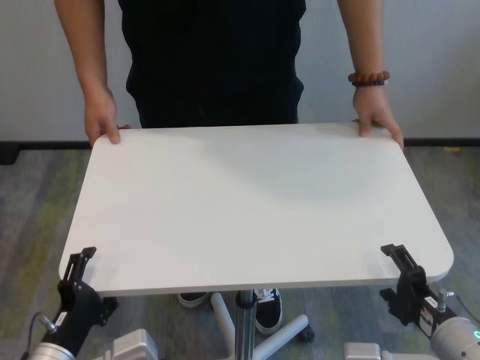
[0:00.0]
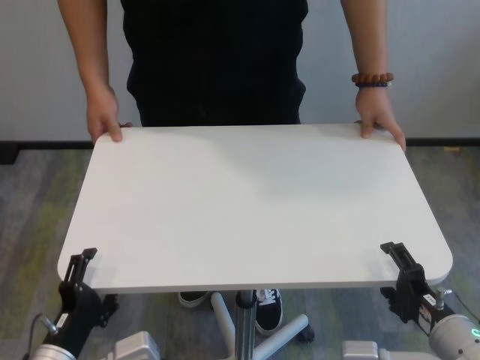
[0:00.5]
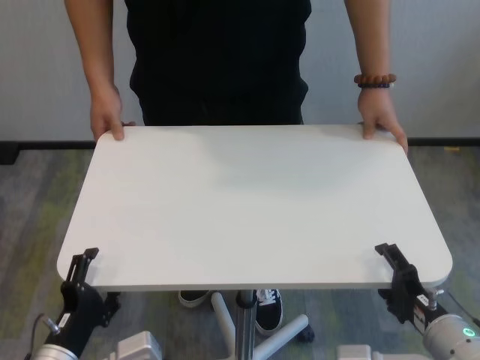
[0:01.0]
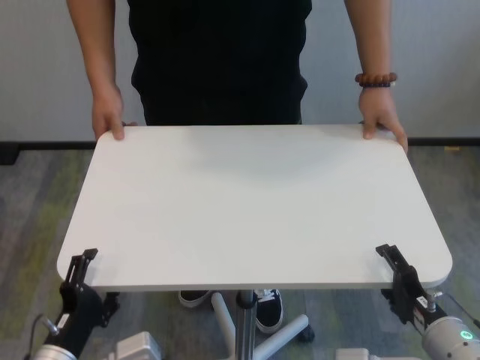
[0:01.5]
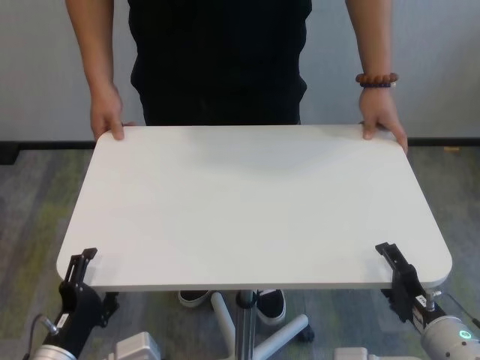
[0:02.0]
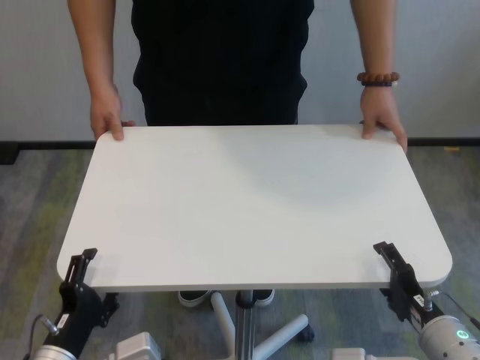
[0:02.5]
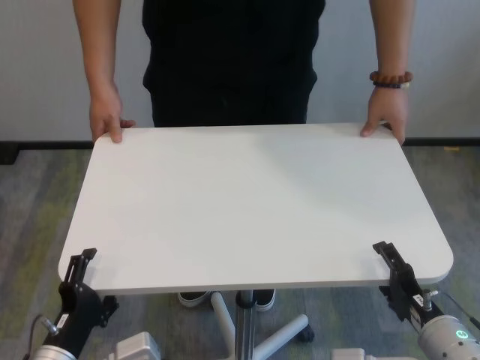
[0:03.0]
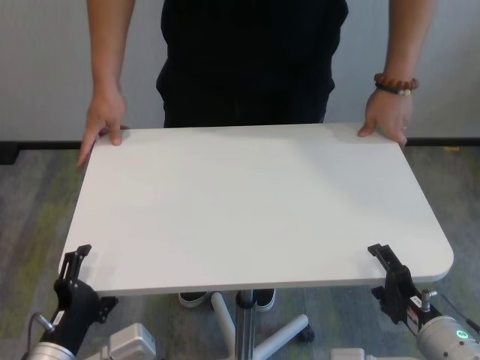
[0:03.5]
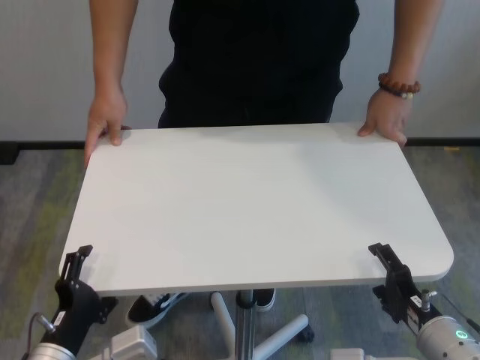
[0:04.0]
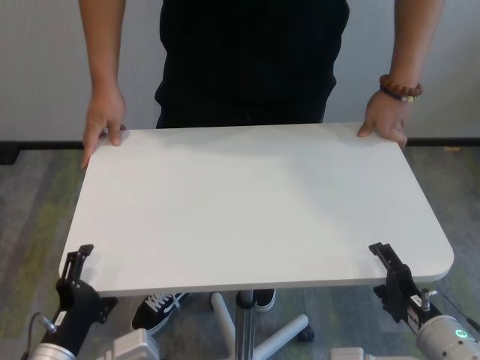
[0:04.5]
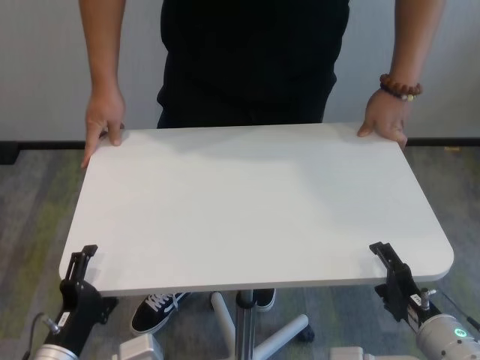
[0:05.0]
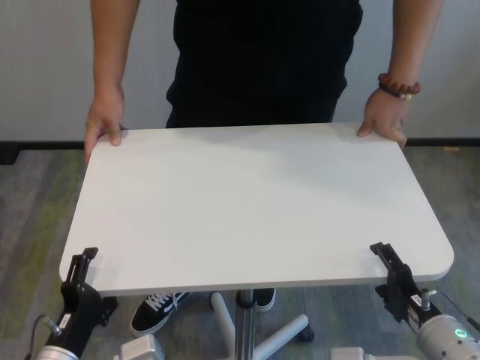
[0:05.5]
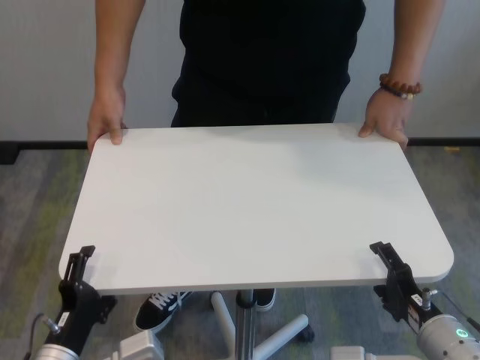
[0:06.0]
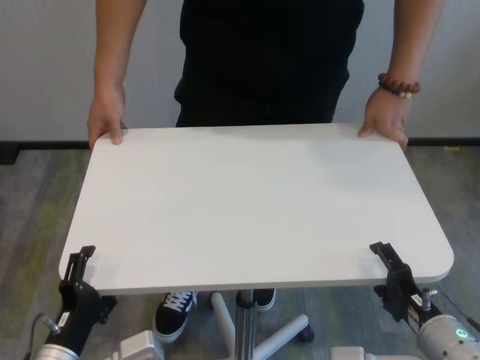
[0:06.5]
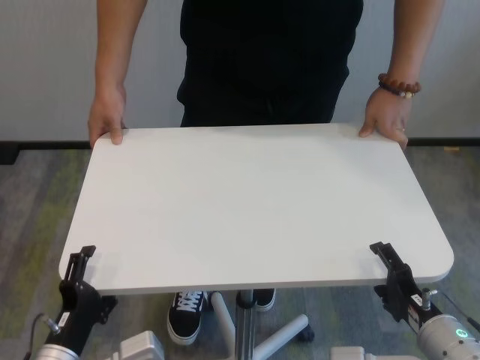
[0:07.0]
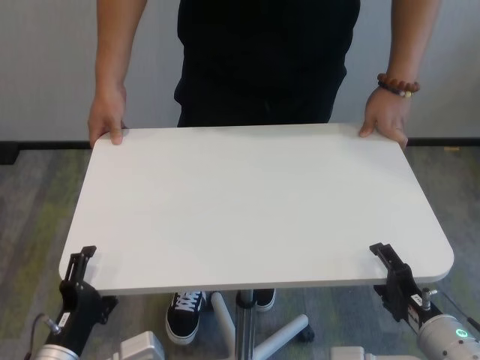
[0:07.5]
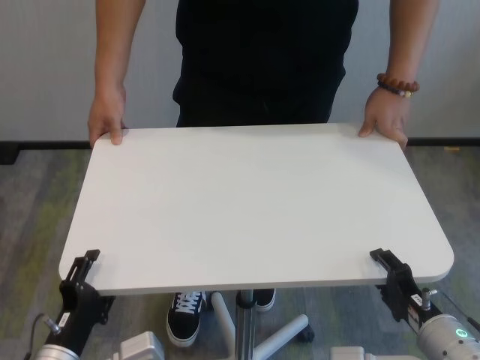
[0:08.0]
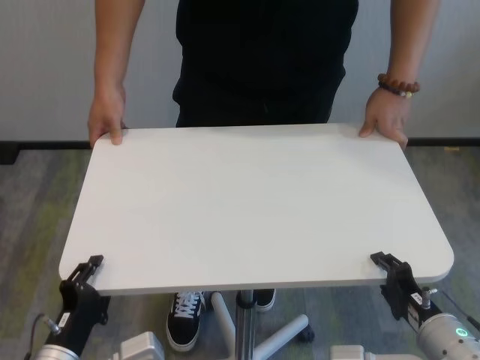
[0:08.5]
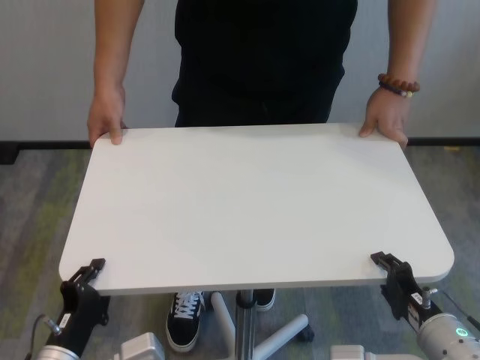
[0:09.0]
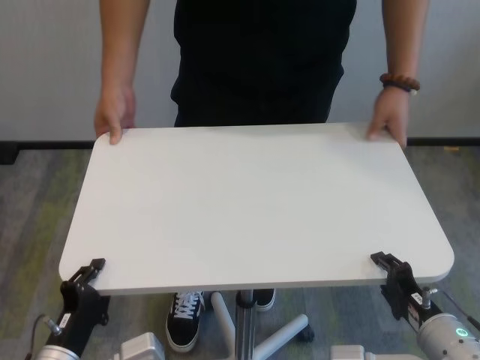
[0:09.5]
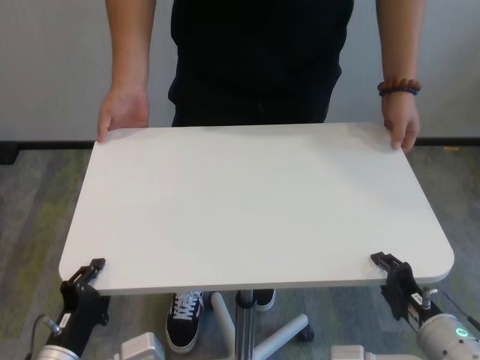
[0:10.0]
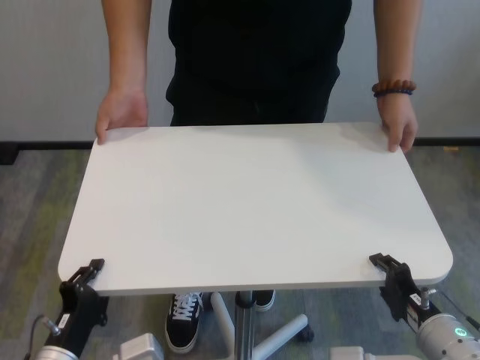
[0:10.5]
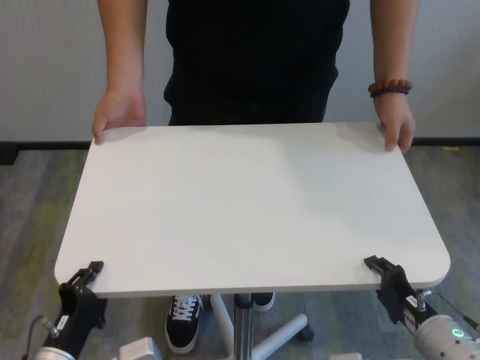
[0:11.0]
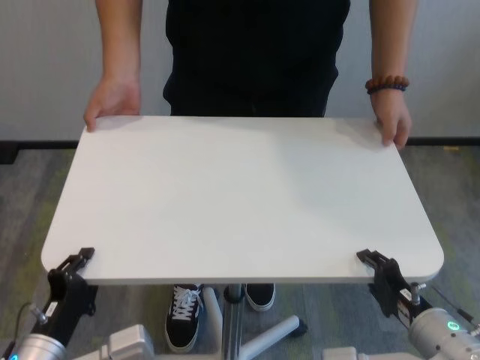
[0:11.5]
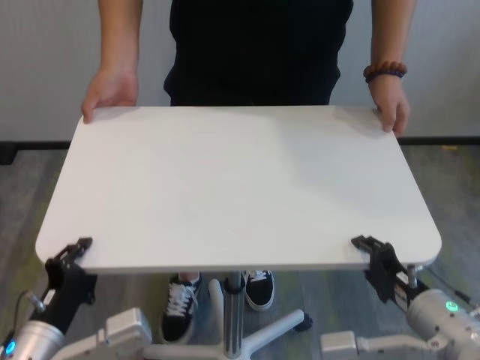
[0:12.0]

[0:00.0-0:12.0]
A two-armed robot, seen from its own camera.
Task of the whole recording: human machine collaborative table moving.
Step, 0:00.0 to 0:08.5: Grasp the table with both grippers.

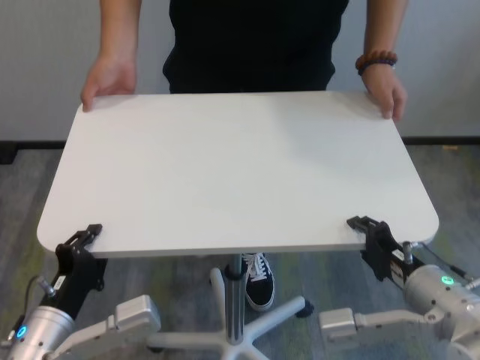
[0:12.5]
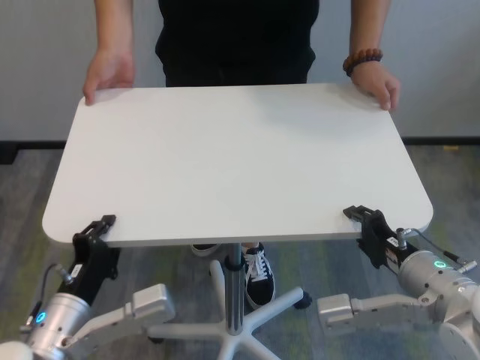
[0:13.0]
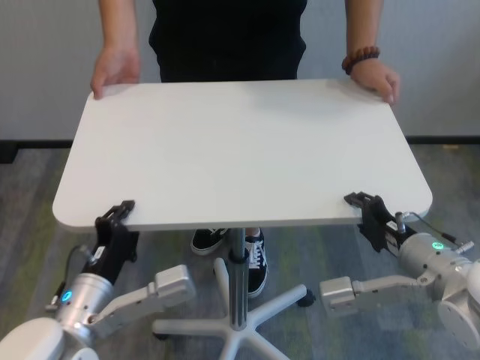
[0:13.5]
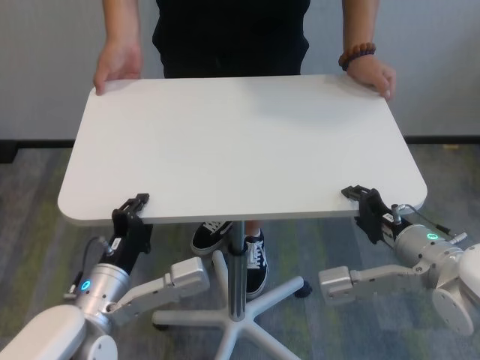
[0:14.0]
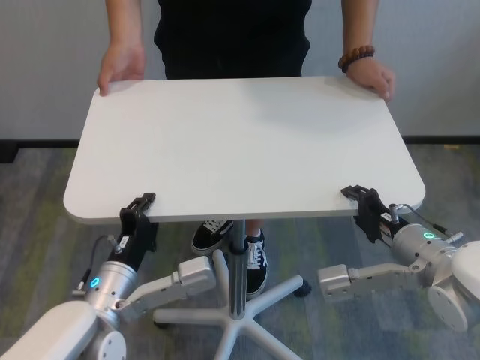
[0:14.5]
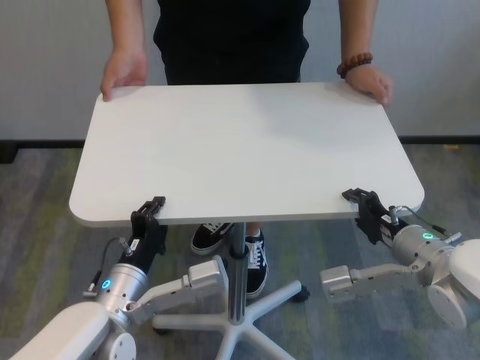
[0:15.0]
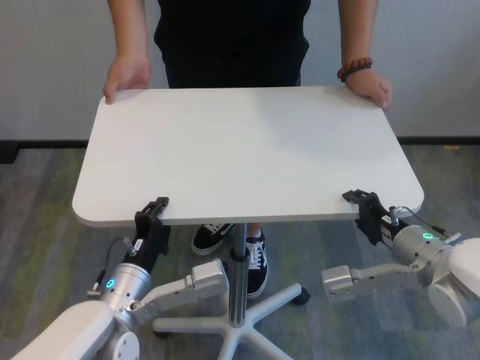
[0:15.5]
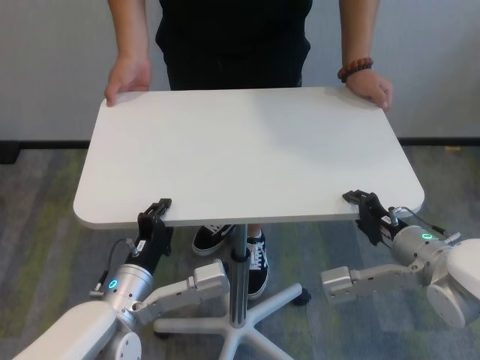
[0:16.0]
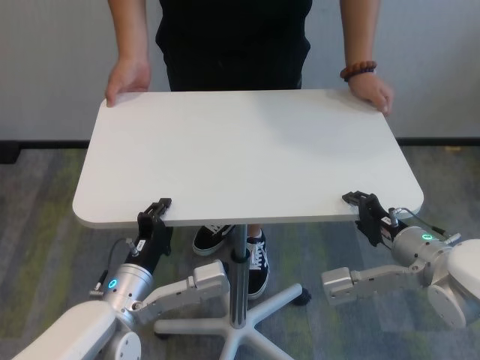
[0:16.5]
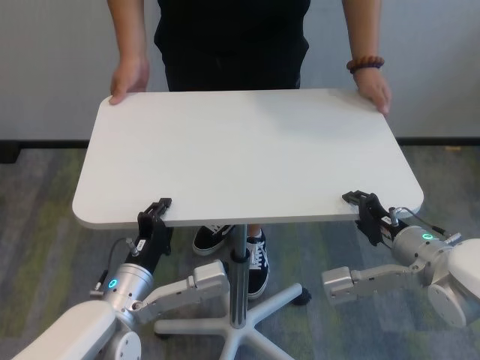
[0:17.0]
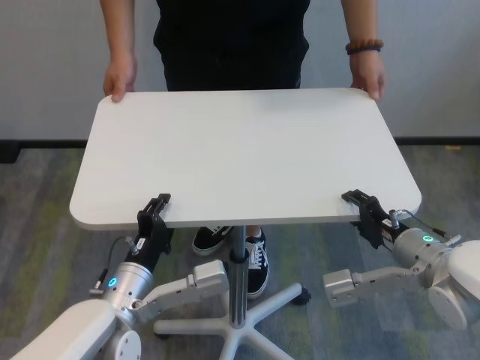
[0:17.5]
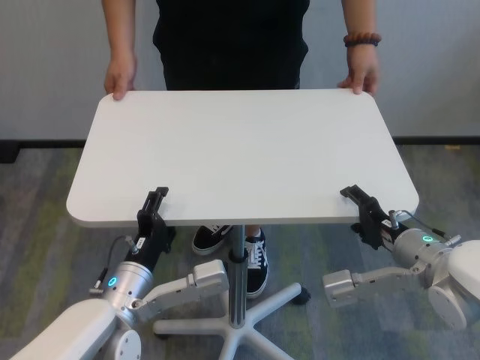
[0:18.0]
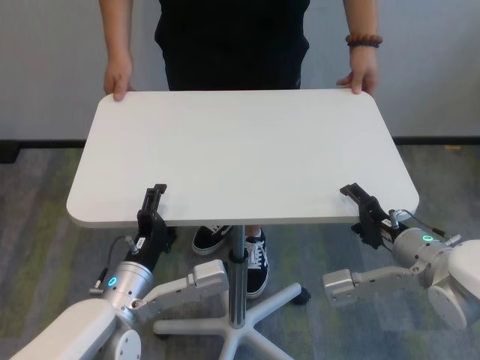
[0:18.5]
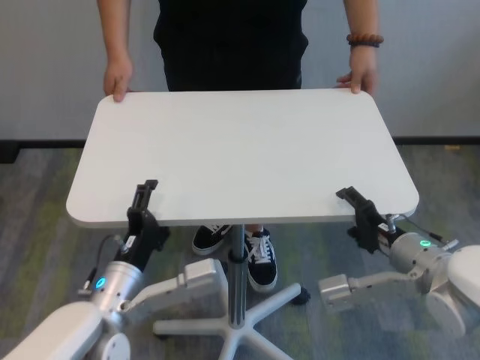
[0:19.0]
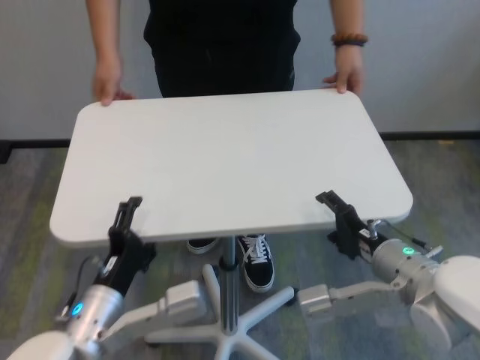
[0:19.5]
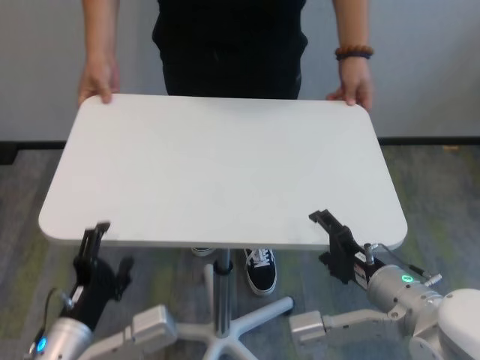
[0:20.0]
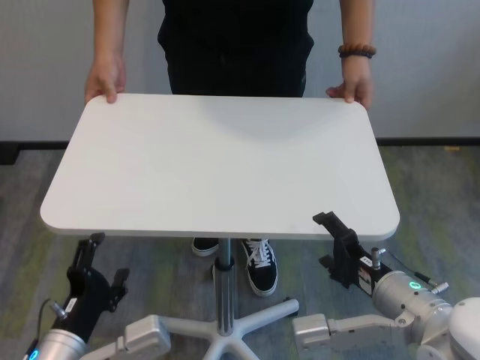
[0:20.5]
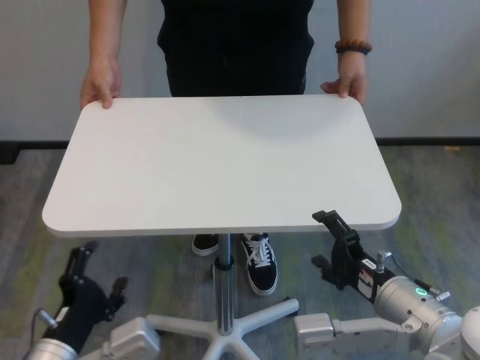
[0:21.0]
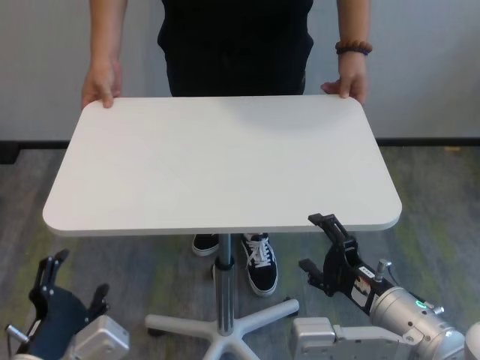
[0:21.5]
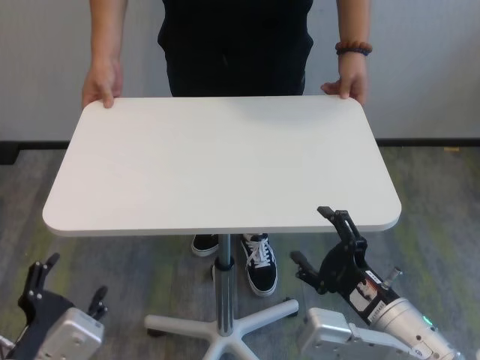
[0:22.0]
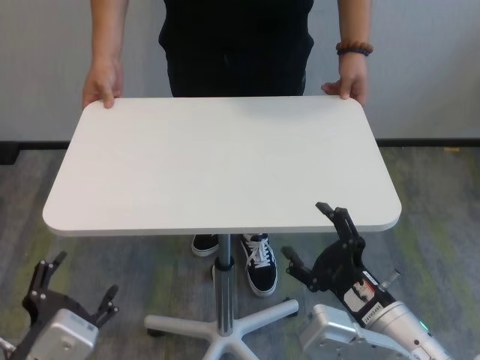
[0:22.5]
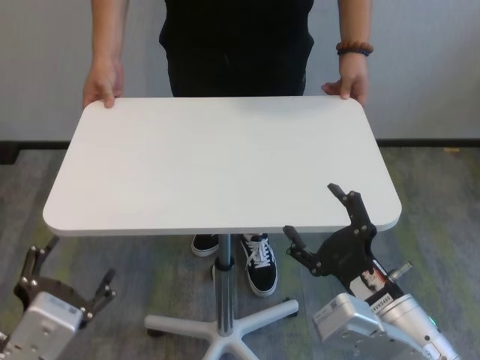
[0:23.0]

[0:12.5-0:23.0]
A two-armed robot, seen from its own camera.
Task of the whole recording: human machine collaborative table moving.
Step, 0:12.5 to 0:18.0: Move the table forward with both grippers.
